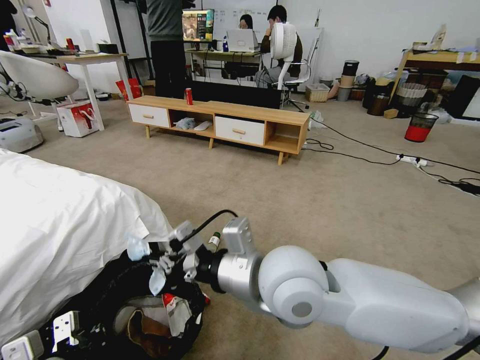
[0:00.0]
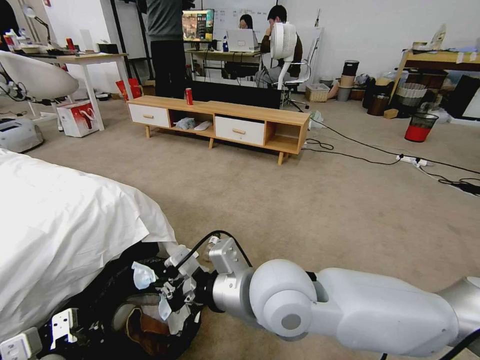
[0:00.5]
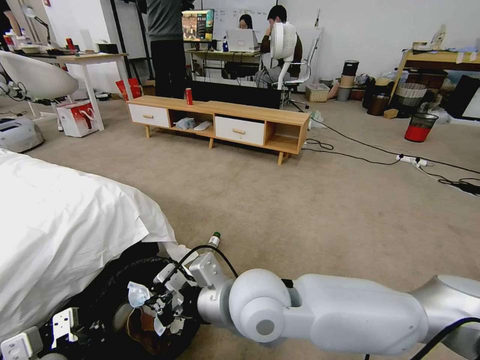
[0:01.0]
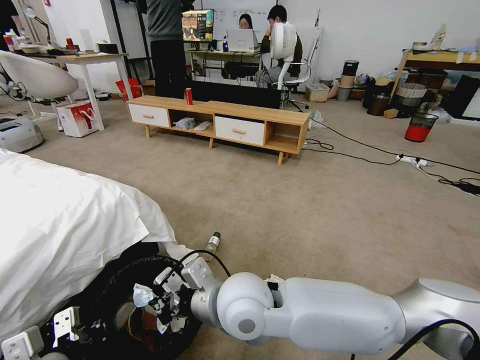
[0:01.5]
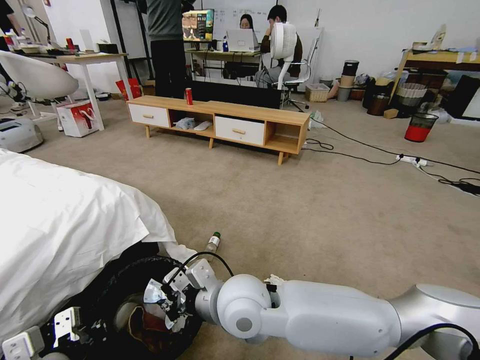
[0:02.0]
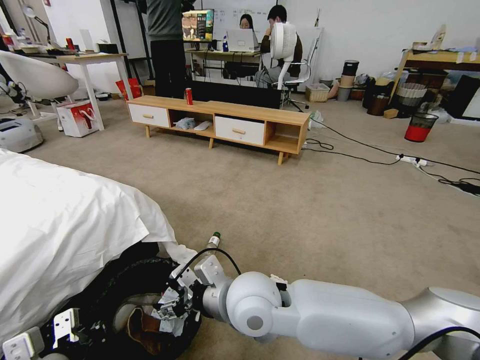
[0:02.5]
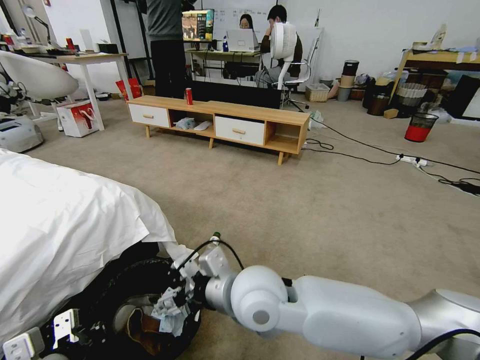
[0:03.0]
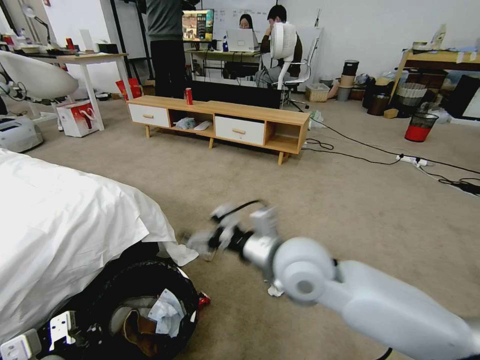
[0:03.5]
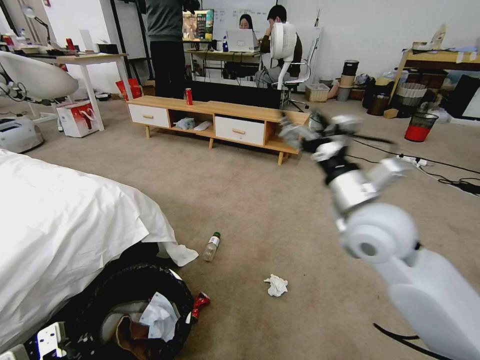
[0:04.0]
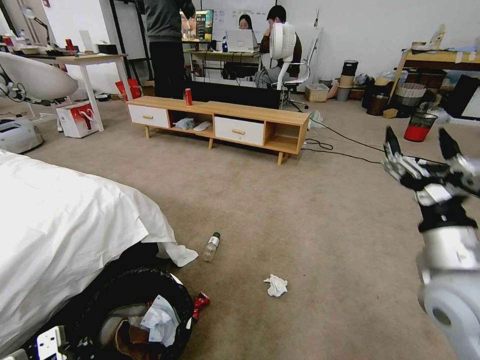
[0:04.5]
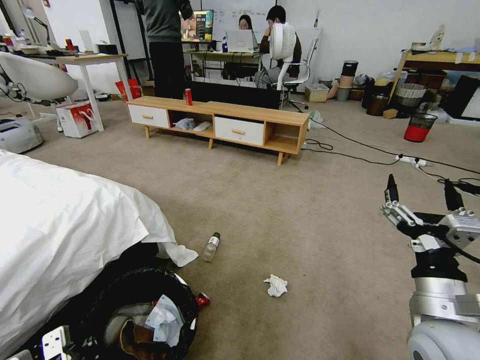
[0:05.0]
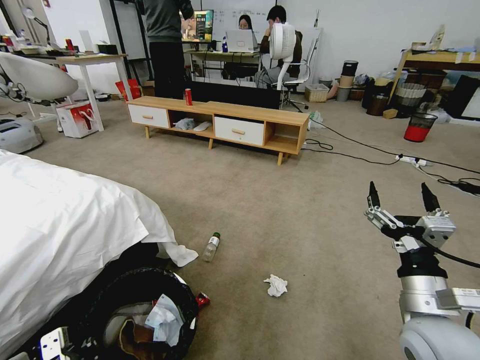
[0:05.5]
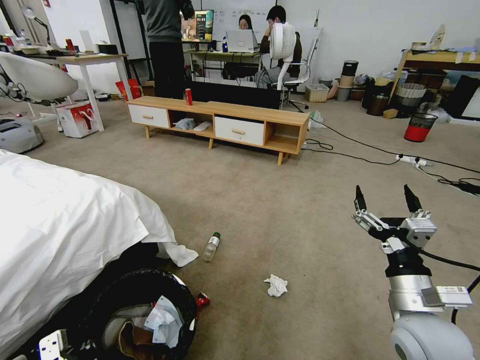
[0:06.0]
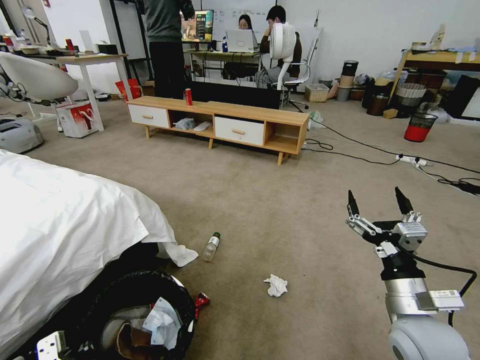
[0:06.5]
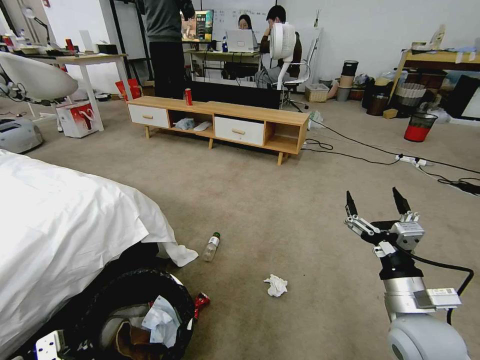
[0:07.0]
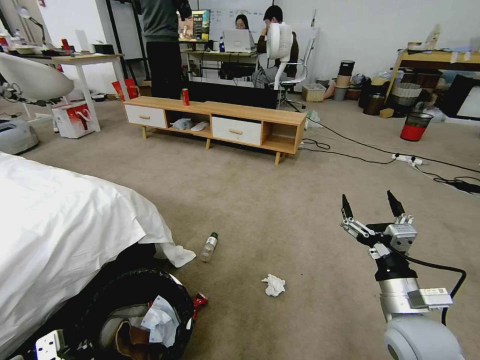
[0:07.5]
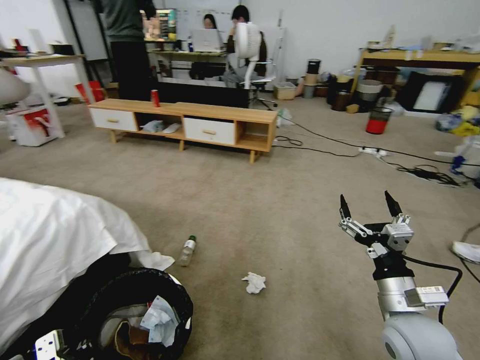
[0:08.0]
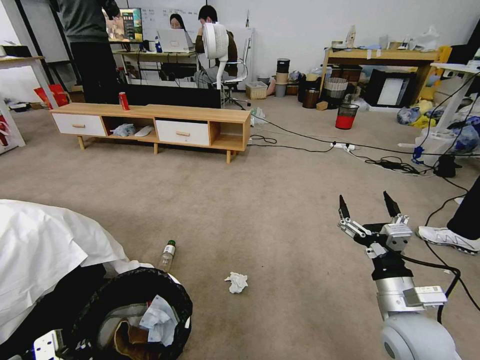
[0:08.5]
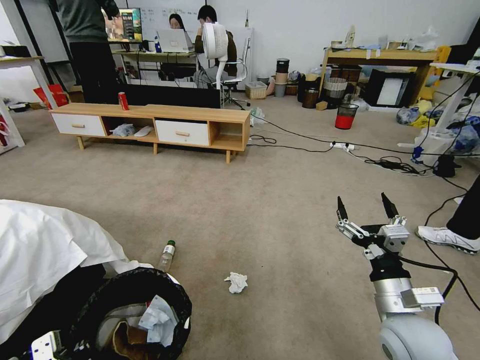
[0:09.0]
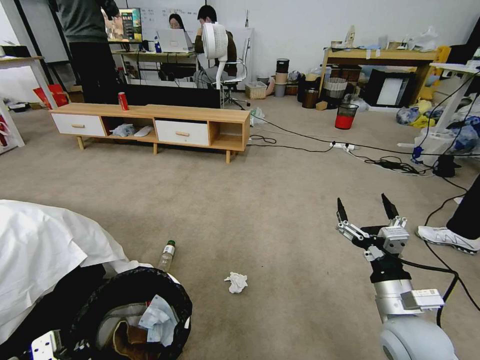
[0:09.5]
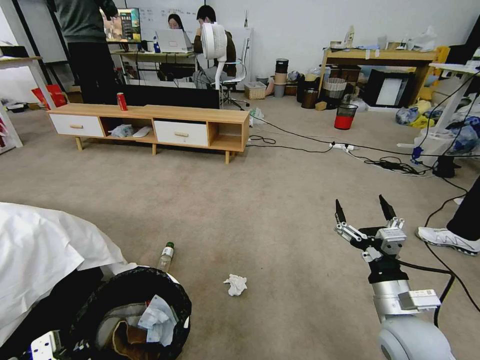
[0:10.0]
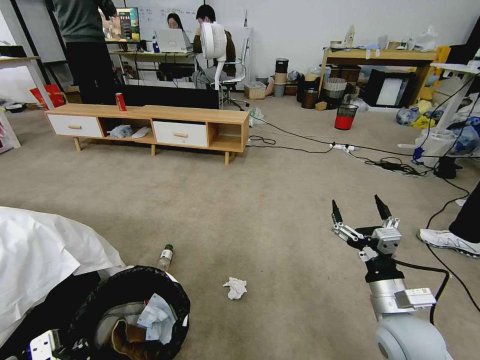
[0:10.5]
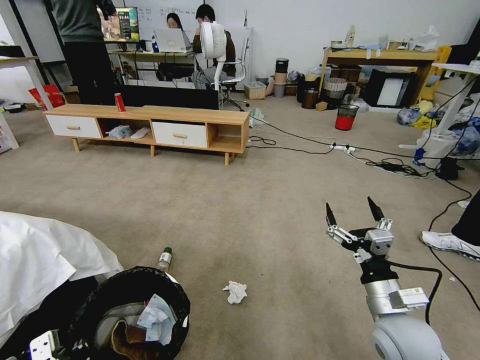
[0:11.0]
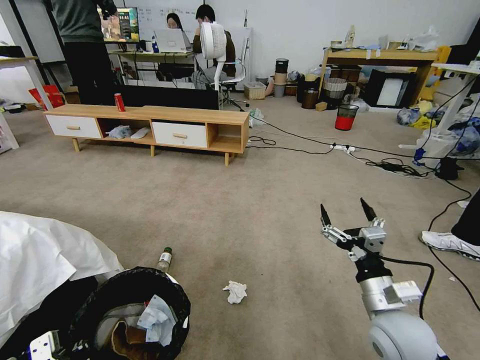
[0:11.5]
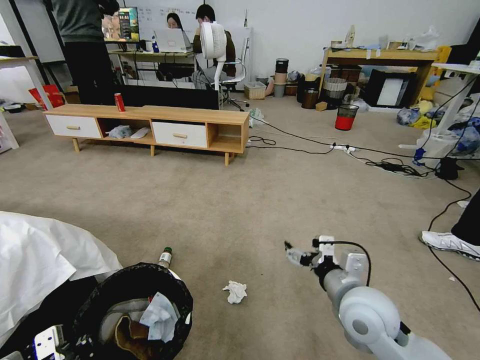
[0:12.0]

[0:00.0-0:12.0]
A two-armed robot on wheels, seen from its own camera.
Task of the whole recording: Pick up the trash bin, then pick up the garbage from the floor and place it into the trash bin.
0:00.0 to 0:02.0: The right gripper moves downward and to the left, approximately 10 cm.
0:02.0 to 0:04.0: The right gripper goes roughly 25 cm to the right and upward, and opens up.
0:04.0 to 0:06.0: The right gripper is displaced downward, backward and to the right by some 20 cm.
0:10.0 to 0:12.0: The right gripper heads to the left, covering approximately 5 cm.

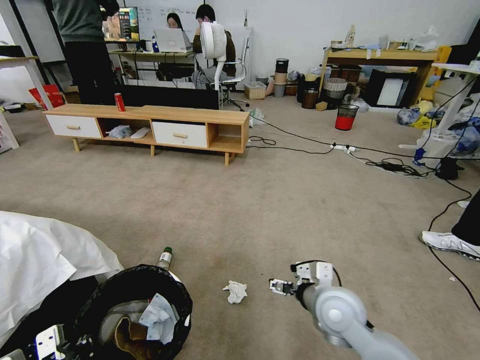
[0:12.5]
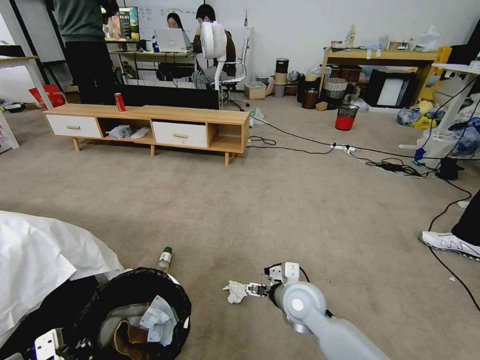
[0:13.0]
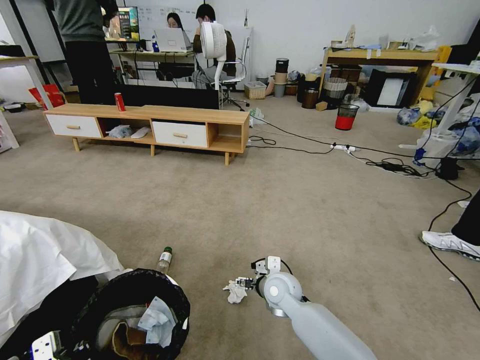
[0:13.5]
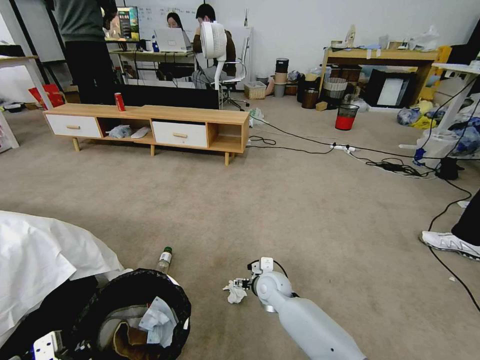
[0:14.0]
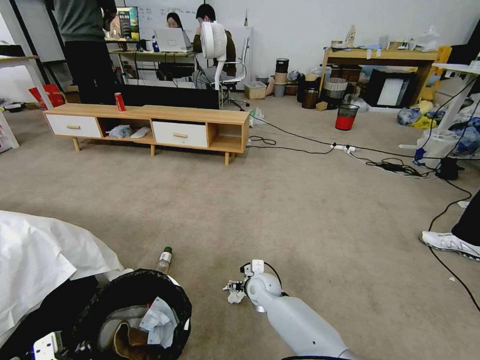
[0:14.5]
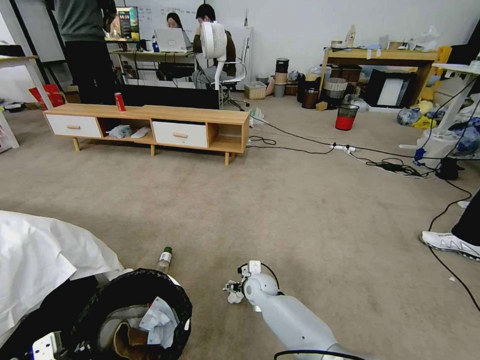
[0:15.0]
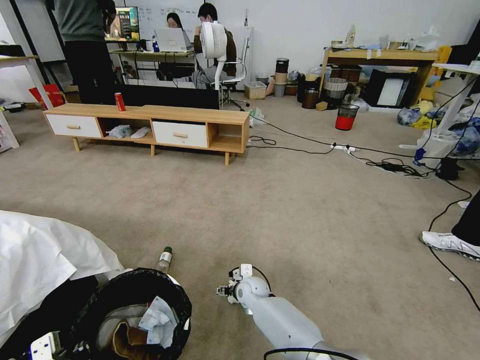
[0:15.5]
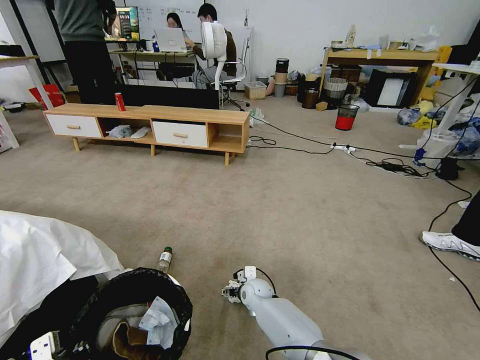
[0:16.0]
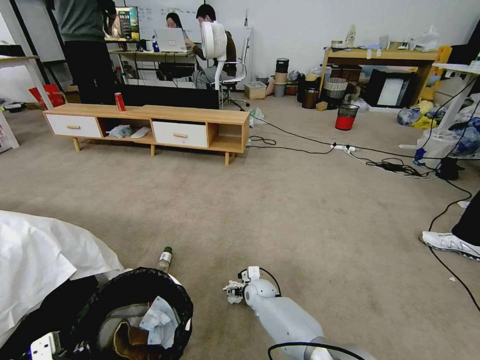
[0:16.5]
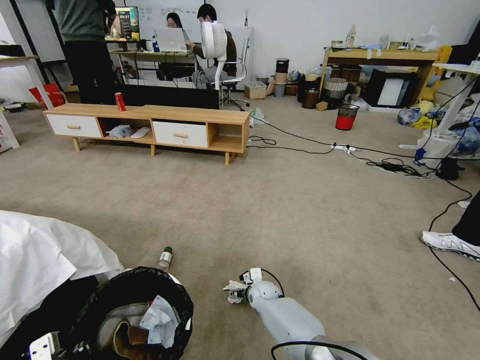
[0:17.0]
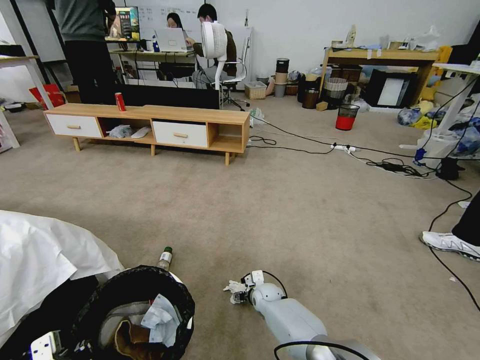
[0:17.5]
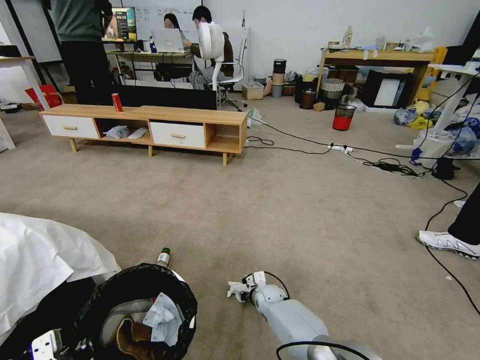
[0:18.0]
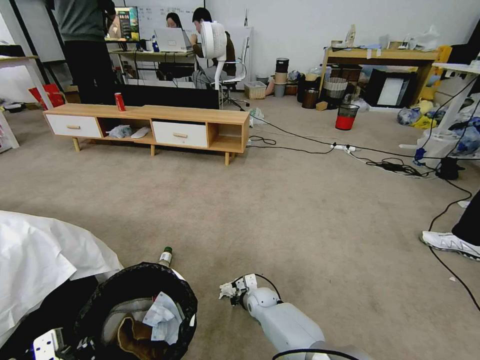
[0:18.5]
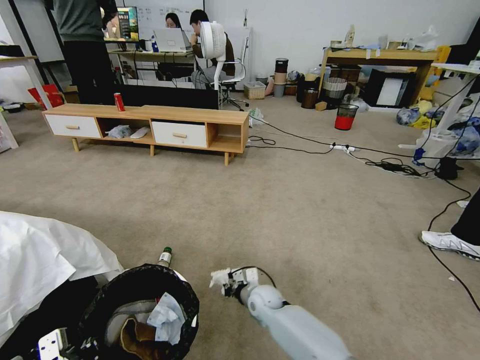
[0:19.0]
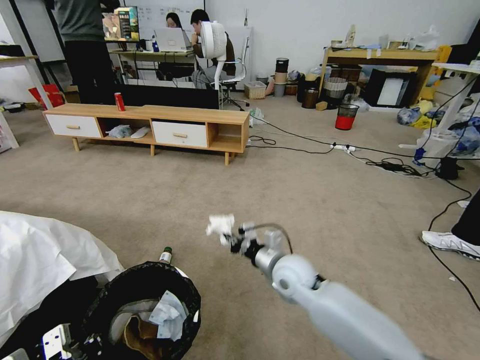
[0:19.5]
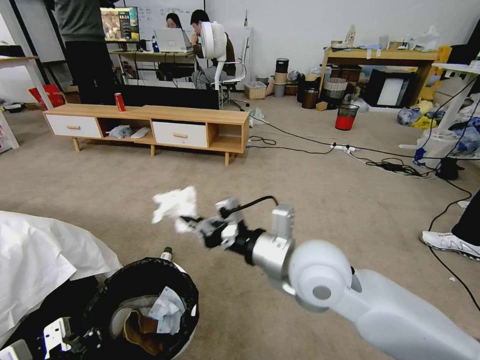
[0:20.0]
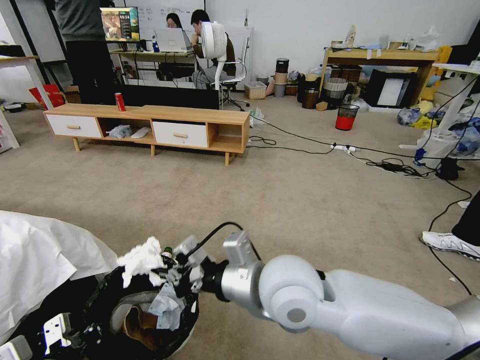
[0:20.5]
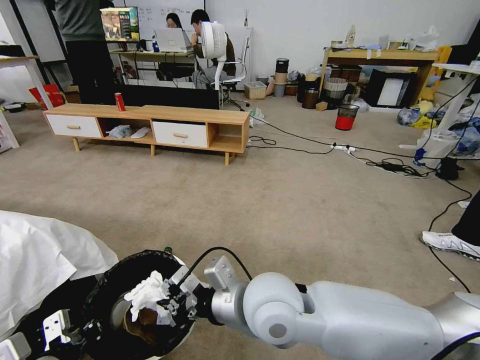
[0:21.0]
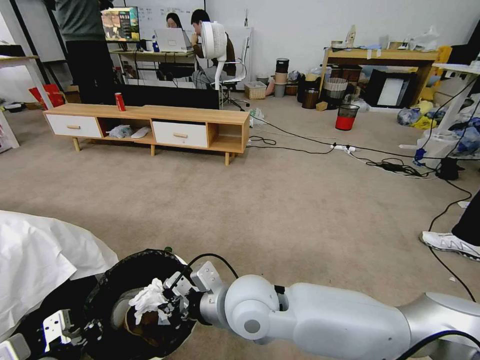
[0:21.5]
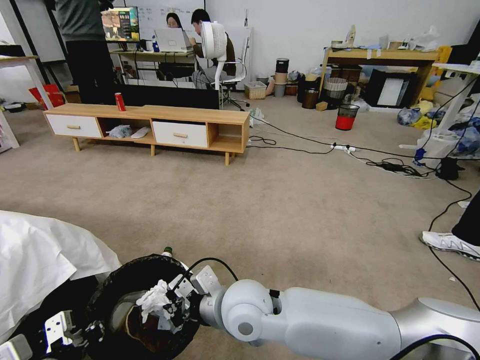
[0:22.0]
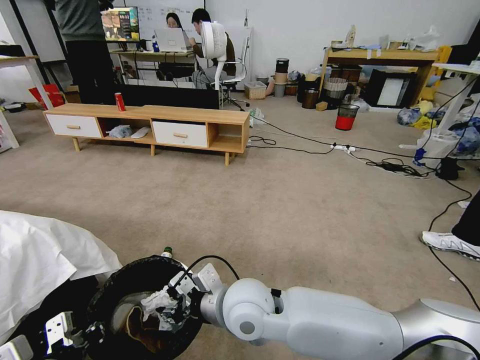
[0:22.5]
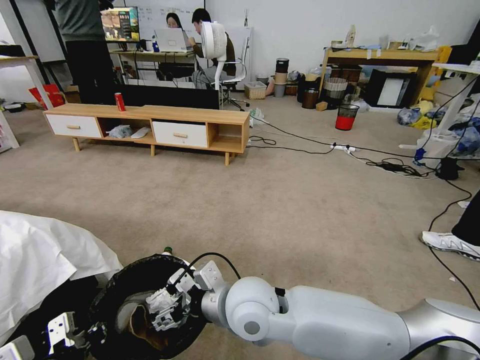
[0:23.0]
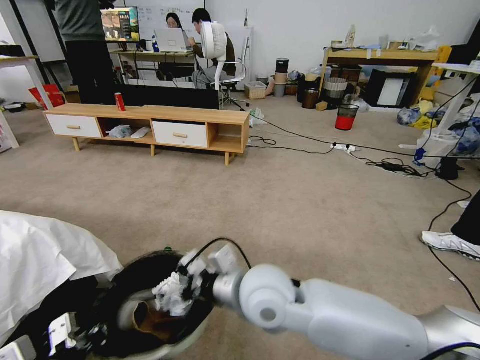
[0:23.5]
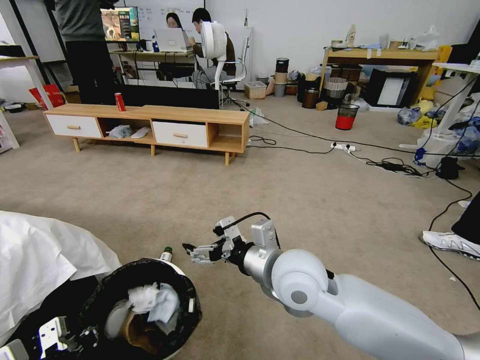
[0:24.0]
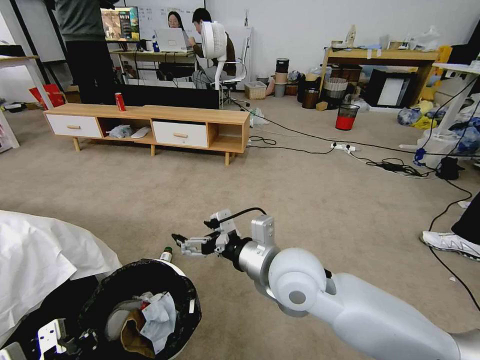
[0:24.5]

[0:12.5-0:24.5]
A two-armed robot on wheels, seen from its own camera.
Task of the whole recording: Pick up the trash bin, then pick up the garbage from the floor and place it into the trash bin.
0:12.5 to 0:14.5: The right gripper travels downward, forward and to the left by some 25 cm.
0:14.5 to 0:16.5: The right gripper travels downward by roughly 5 cm.
0:16.5 to 0:18.5: The right gripper closes.
0:18.5 to 0:20.5: The right gripper travels upward and backward by about 40 cm.
0:20.5 to 0:22.5: The right gripper moves downward and to the left, some 10 cm, and opens.
0:22.5 to 0:24.5: The right gripper goes approximately 10 cm to the right and upward, and opens.

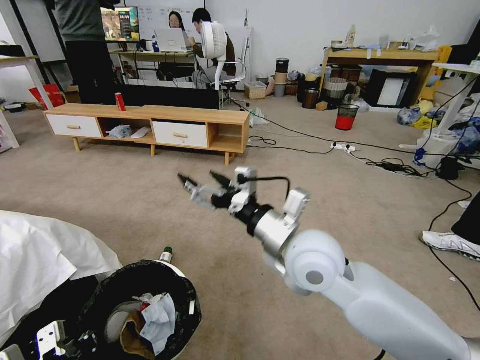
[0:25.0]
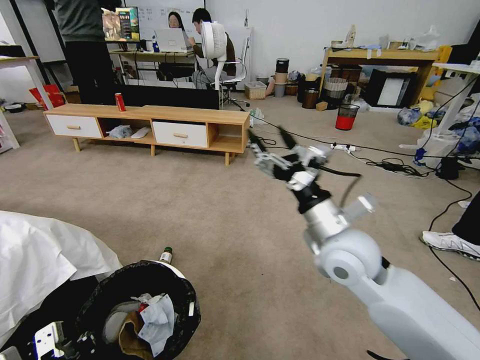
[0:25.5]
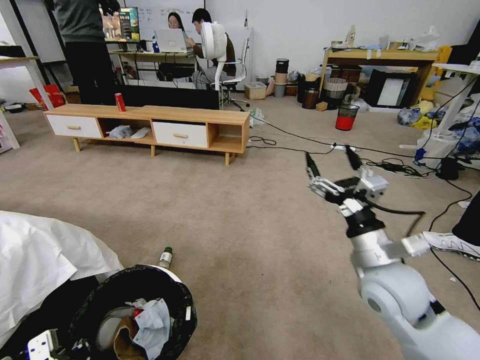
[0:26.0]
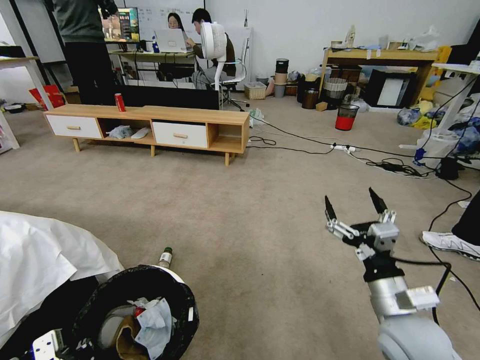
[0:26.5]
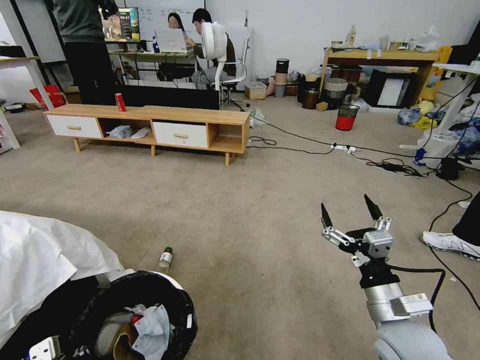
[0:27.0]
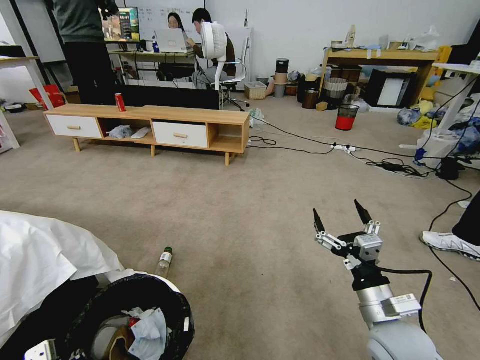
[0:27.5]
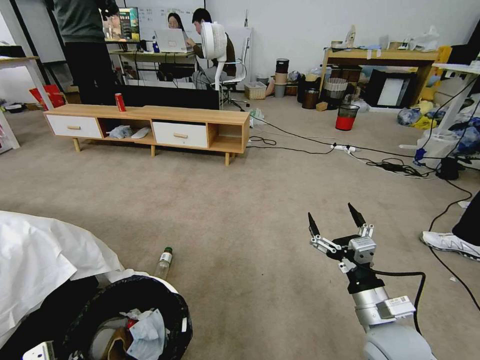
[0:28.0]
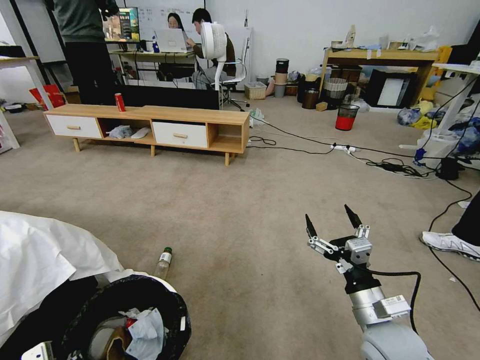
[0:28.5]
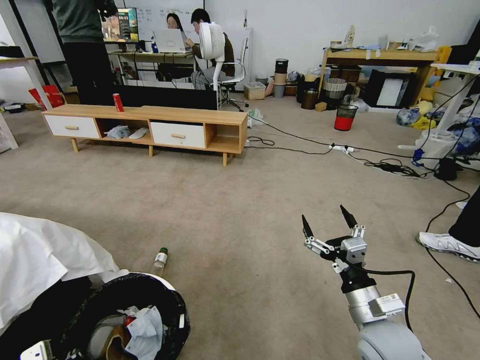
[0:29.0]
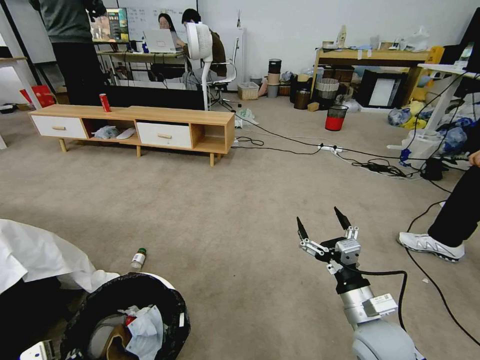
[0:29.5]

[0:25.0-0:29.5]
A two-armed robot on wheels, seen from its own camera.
Task of the whole recording: Pick up the trash bin, then pick up the garbage from the floor and place it into the trash bin.
0:25.0 to 0:27.0: The right gripper moves to the right, downward and backward, about 25 cm.
